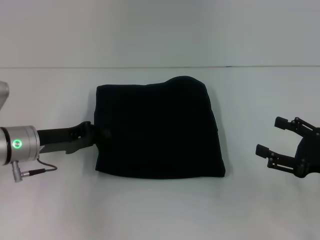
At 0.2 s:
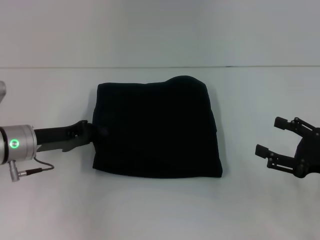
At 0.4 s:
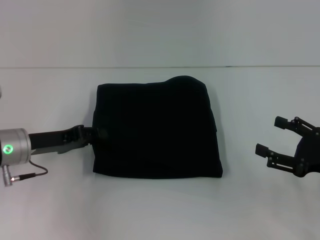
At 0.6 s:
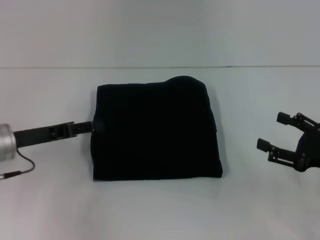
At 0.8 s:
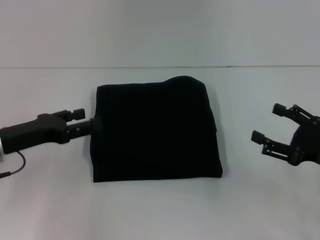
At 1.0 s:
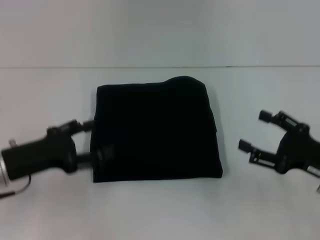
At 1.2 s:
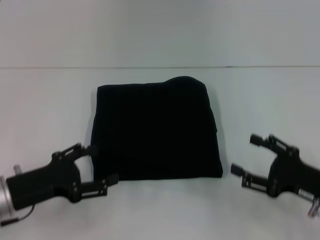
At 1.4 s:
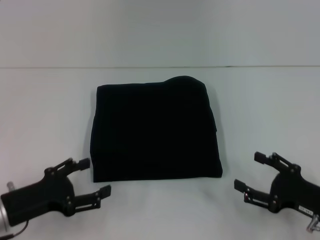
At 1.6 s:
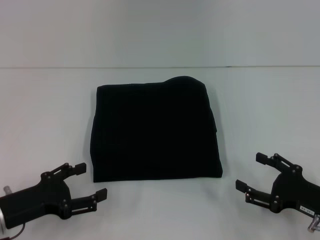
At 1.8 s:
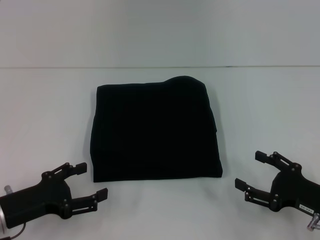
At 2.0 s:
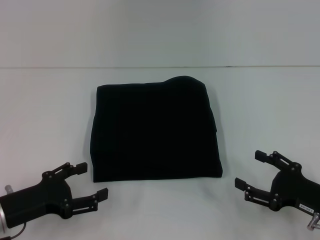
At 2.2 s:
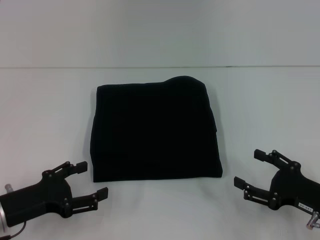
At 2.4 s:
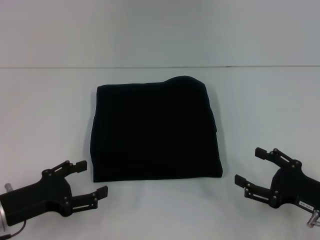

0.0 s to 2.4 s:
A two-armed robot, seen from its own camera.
0.0 to 1.2 s: The left gripper moves backward, approximately 10 cm, and opens up.
1.2 to 2.4 s: The grippers make only small movements.
